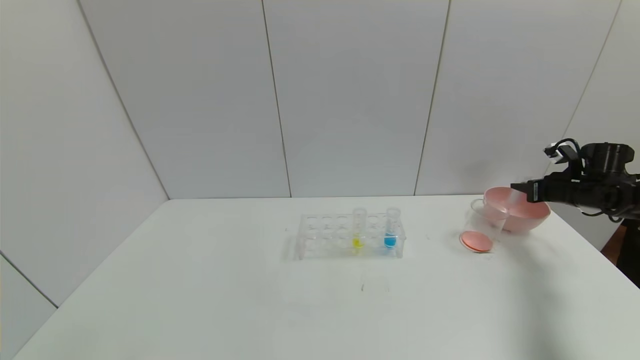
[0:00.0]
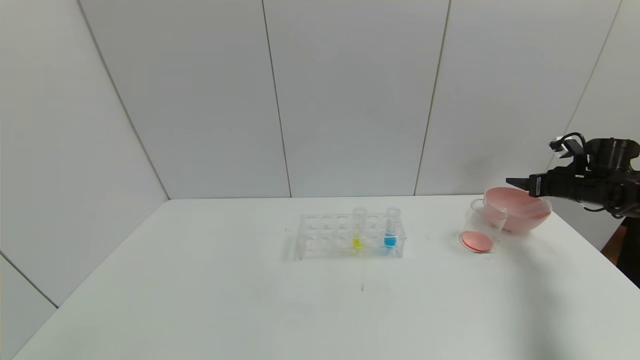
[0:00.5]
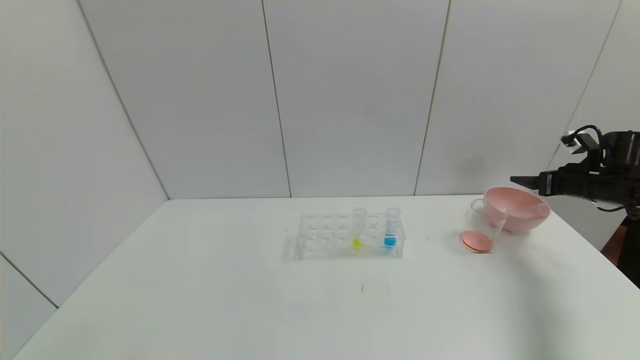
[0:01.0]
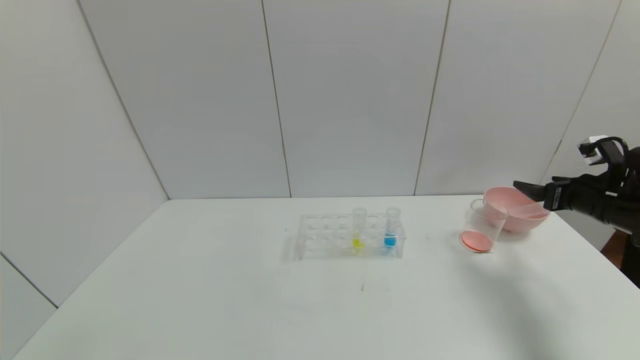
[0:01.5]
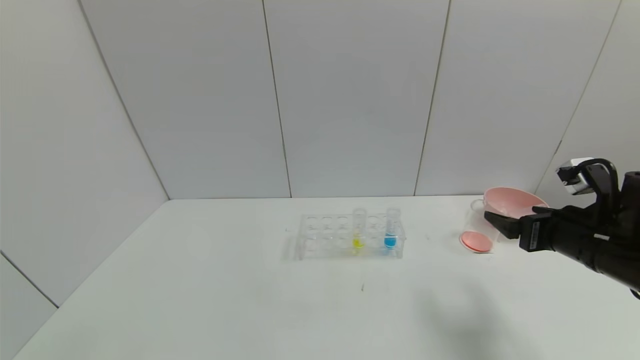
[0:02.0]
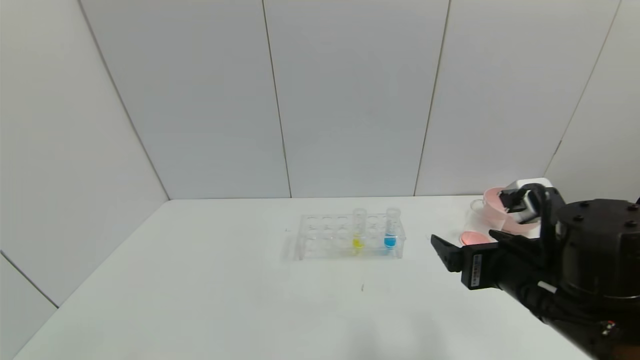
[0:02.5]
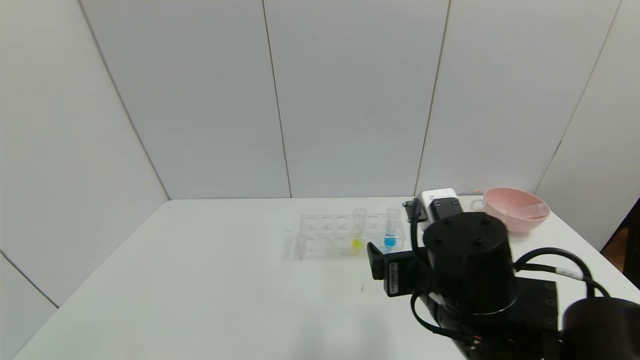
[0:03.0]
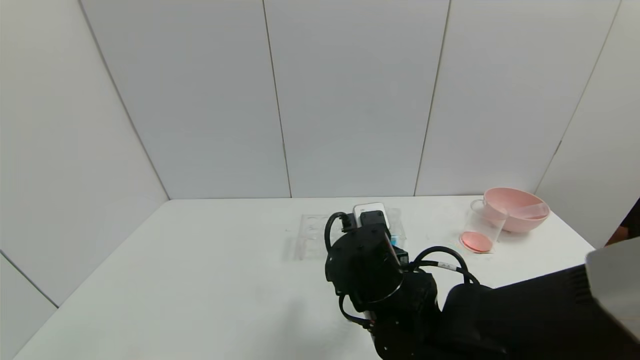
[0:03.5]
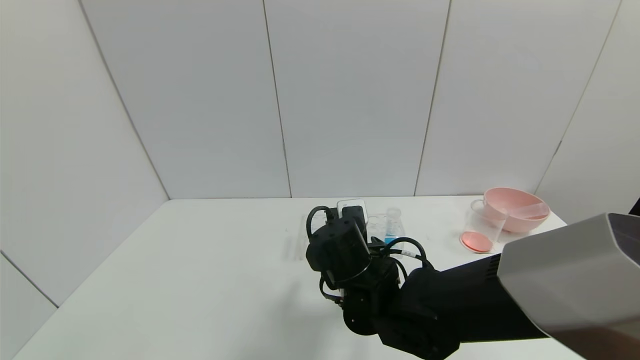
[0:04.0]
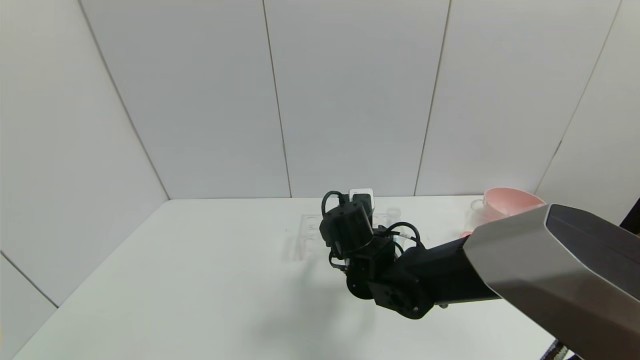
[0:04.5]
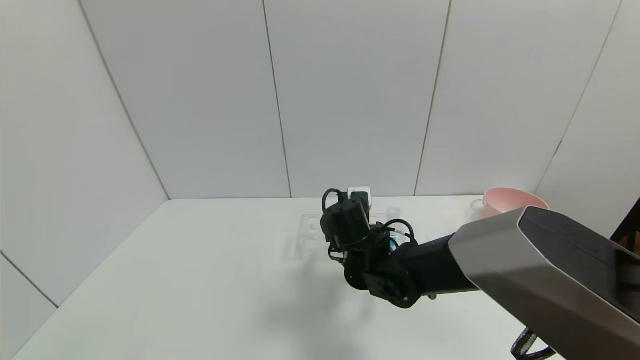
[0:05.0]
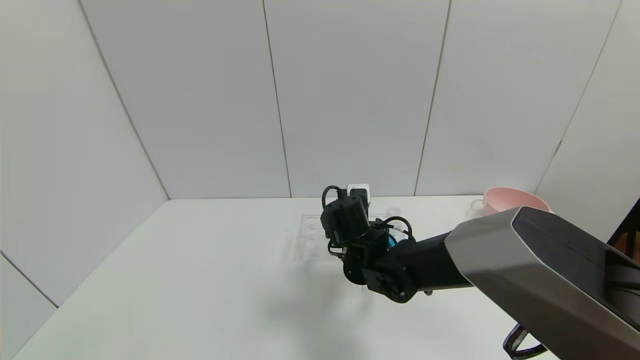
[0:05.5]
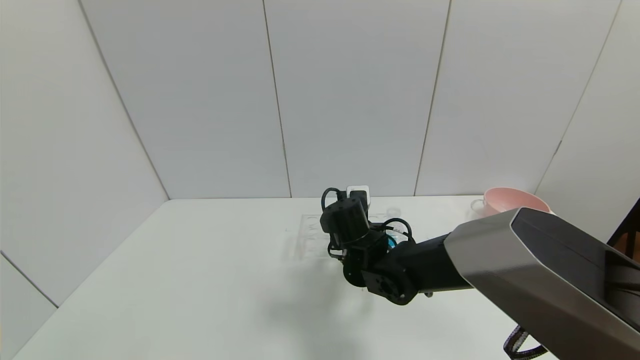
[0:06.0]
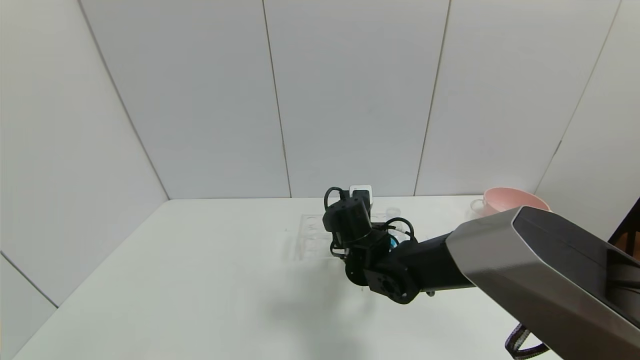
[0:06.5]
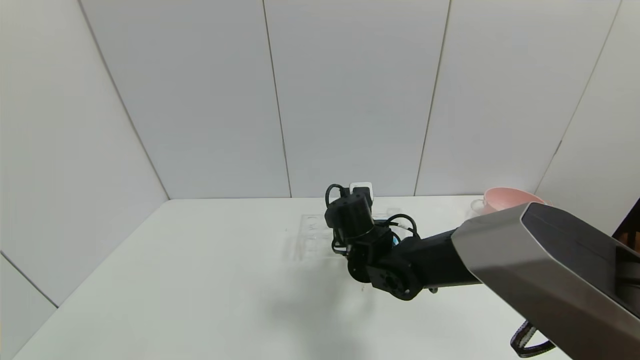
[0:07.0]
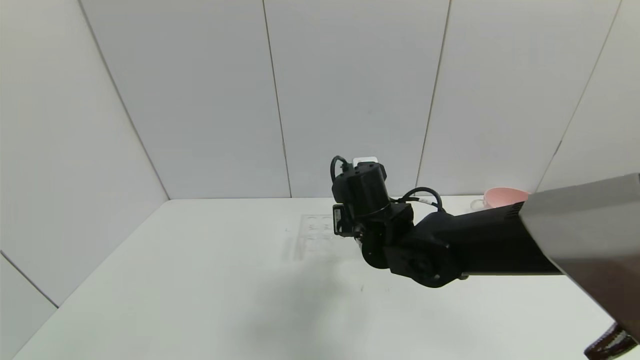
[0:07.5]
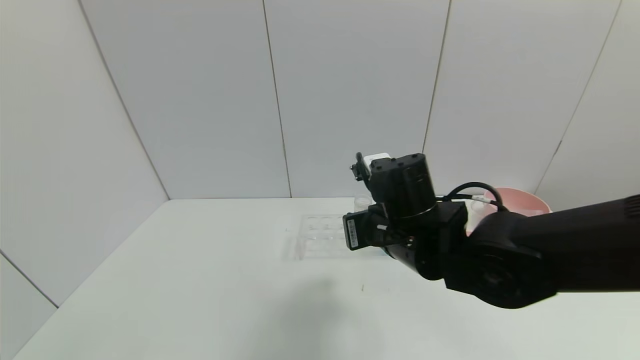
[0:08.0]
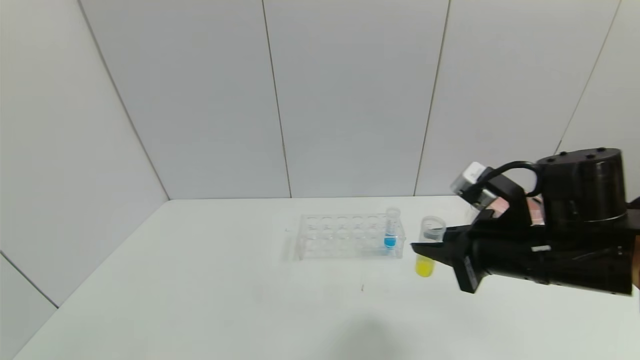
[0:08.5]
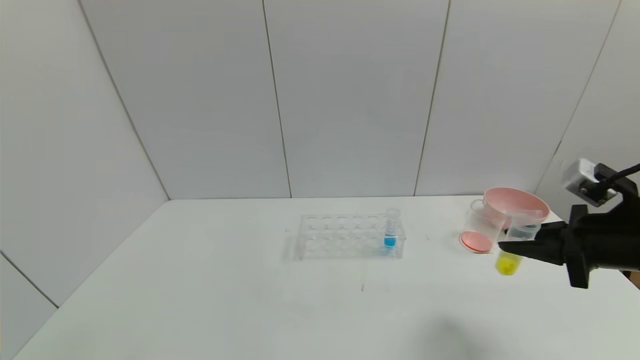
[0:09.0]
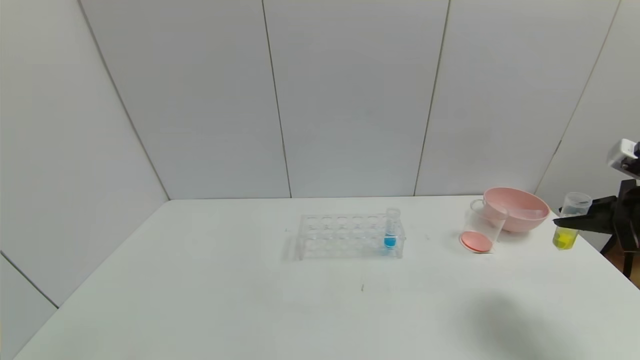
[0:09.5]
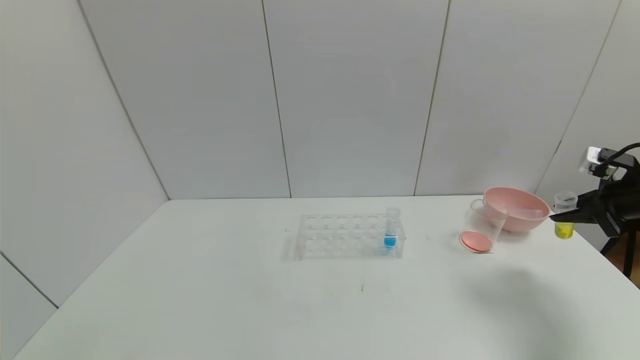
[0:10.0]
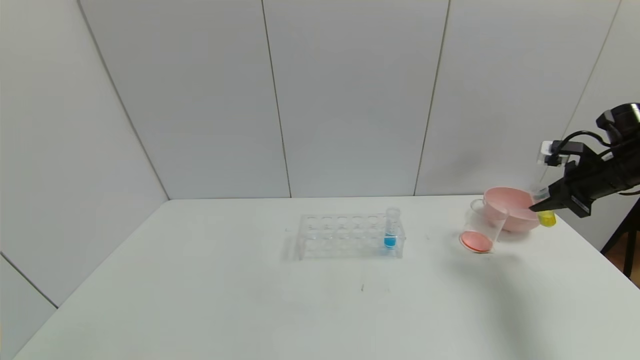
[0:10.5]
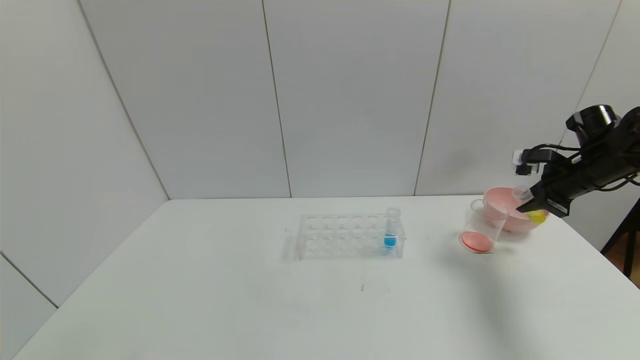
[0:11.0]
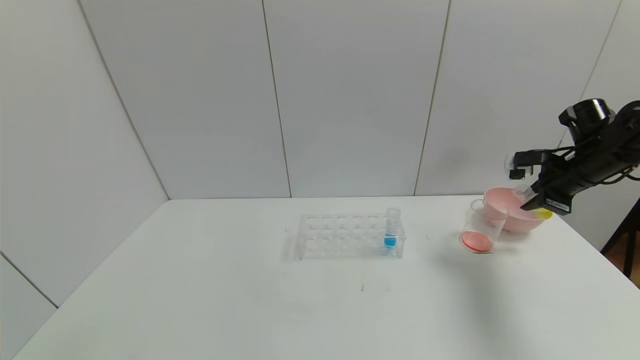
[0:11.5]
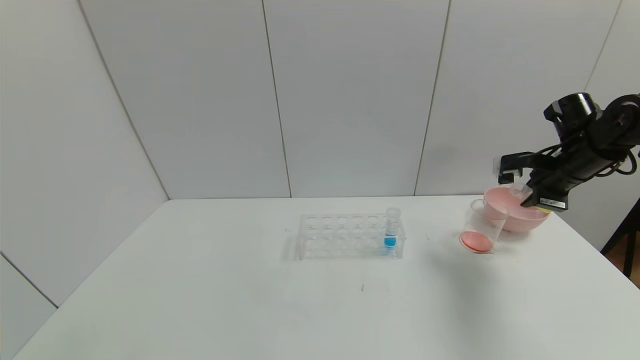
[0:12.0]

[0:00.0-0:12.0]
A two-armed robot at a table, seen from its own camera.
Task of the whole recording: pick up the test tube with yellow pigment and the test tube with red pigment by grippers and pour them into the beaker.
Step, 0:01.0 to 0:06.0: Grasp the yellow reagent with the right gripper.
0:00.0 to 0:02.0: The right gripper travels backward and to the left by roughly 30 cm, and opens its fingers.
0:02.0 to 0:04.0: The right gripper heads to the left, covering some 30 cm.
0:04.0 to 0:06.0: The right gripper travels forward by roughly 10 cm, and closes its fingers.
0:06.0 to 0:08.0: The right gripper is displaced upward, backward and to the right by approximately 15 cm.
0:08.0 to 0:10.0: The right gripper heads to the right, covering roughly 40 cm.
0:10.0 to 0:12.0: The right gripper heads to the left and forward, covering roughly 10 cm.

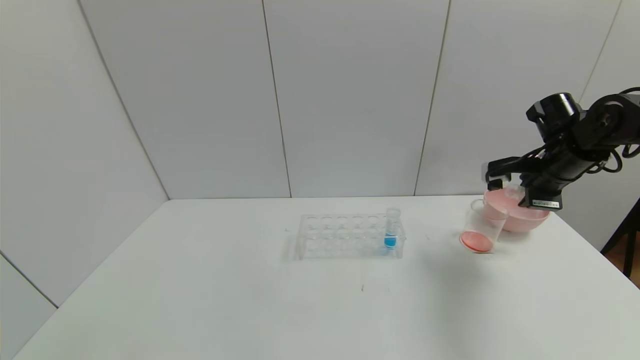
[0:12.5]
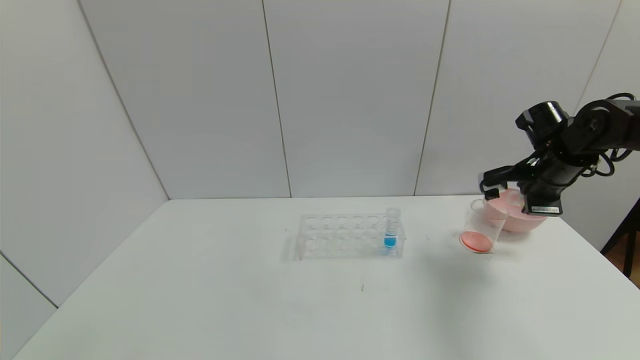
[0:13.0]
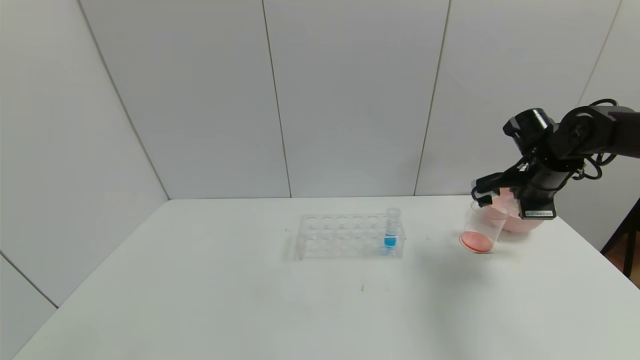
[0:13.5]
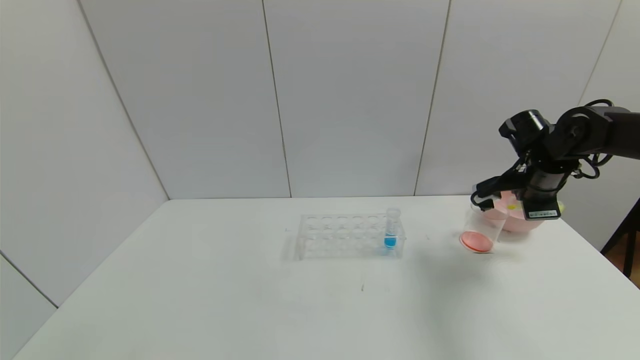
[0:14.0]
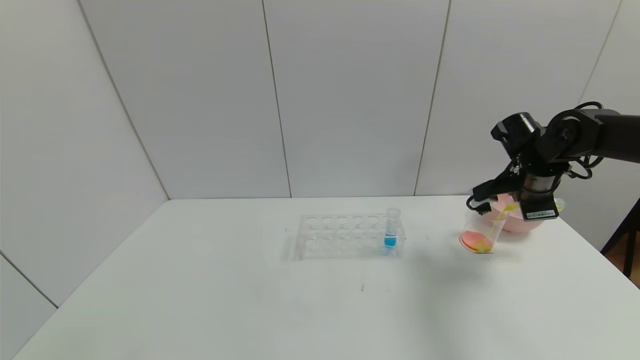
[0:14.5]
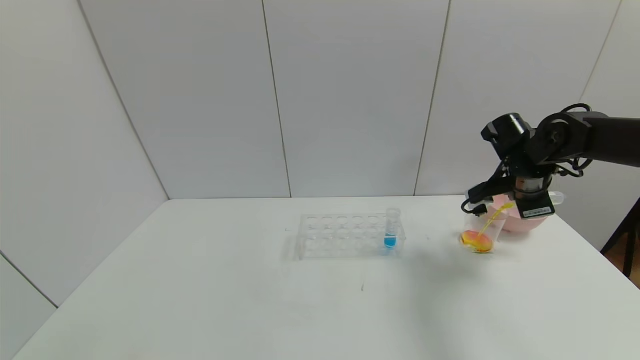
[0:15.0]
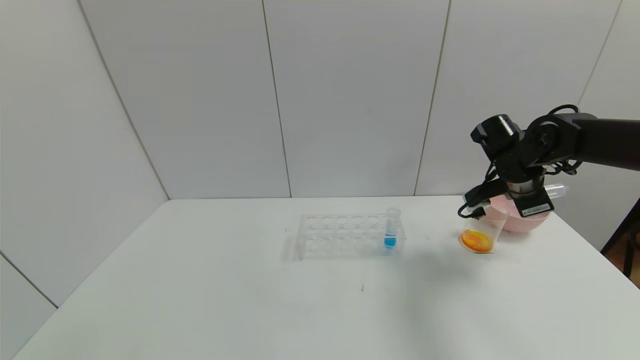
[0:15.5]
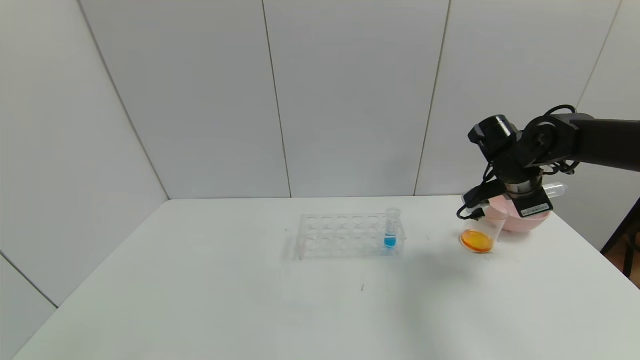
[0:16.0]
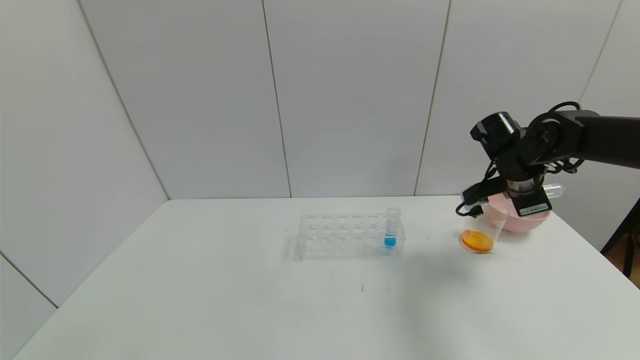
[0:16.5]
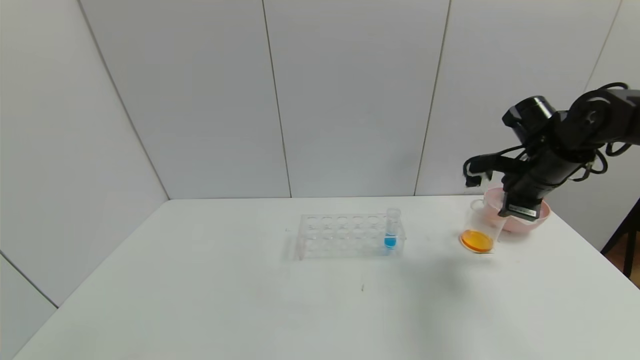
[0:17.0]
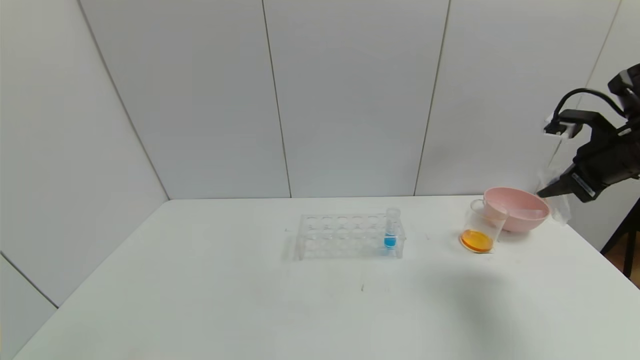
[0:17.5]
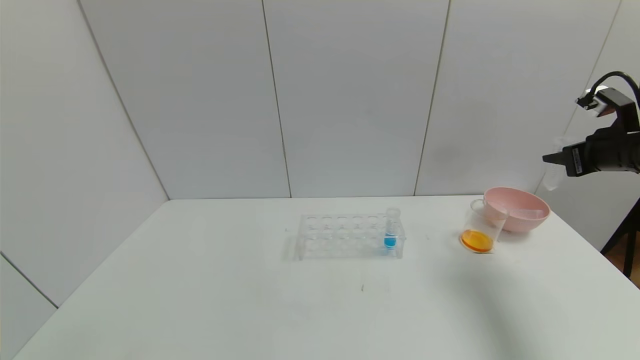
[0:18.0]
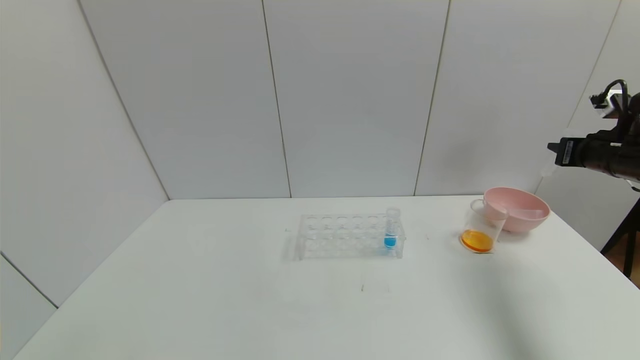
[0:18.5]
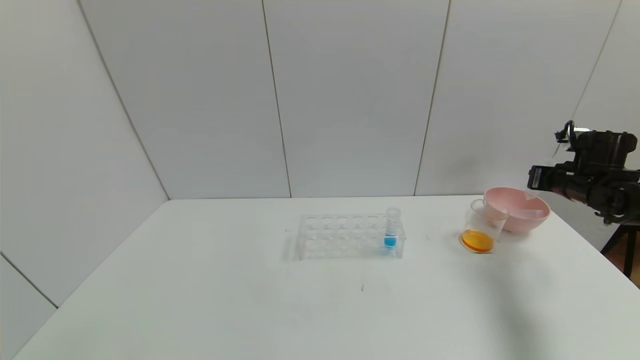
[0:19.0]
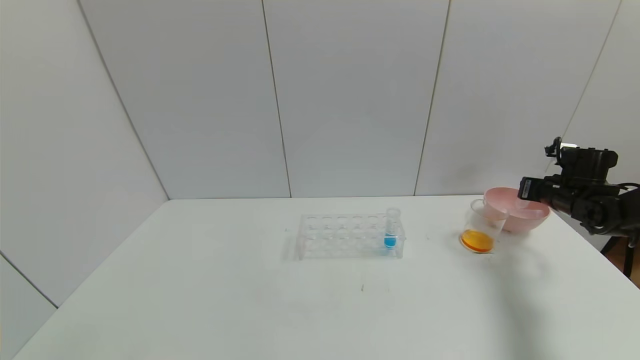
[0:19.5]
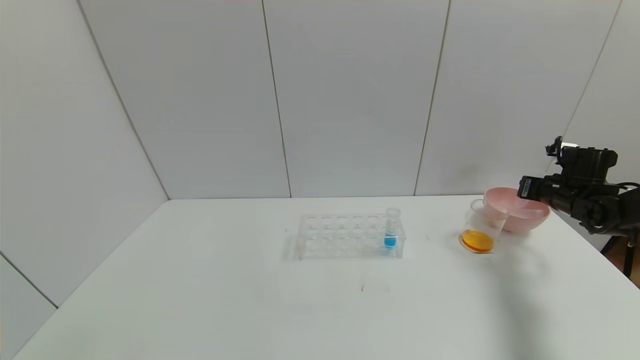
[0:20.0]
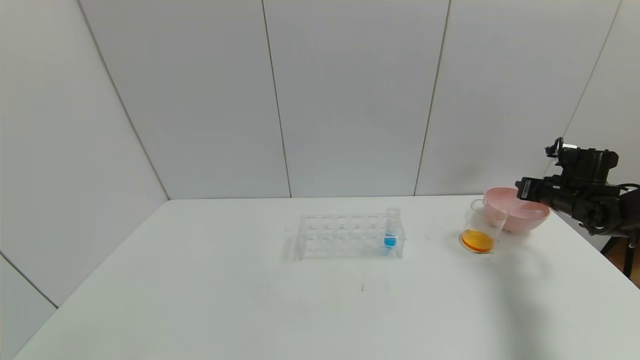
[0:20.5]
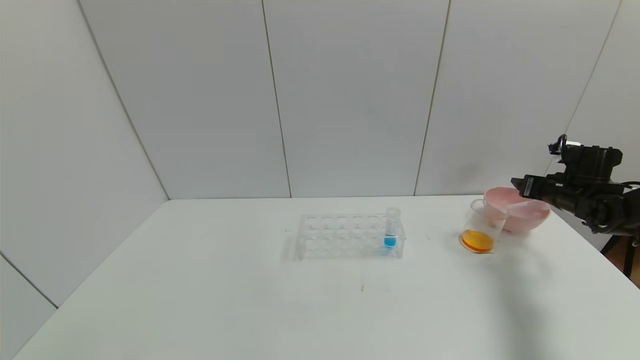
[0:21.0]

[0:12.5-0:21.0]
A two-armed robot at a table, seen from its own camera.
Task of the whole recording: pick up the test tube with yellow pigment and the test tube with red pigment by grippers and pour them into the beaker.
Step, 0:12.5 to 0:15.5: Pour the yellow reagent into the graduated cylinder with the right gripper.
Step, 0:16.0 to 0:20.5: Place the test tube into the bowl with the right gripper.
0:14.5 to 0:16.5: The grippers move only a little.
0:16.5 to 0:19.0: The right gripper goes roughly 15 cm to the right.
0:19.0 to 0:21.0: The right gripper opens up.
